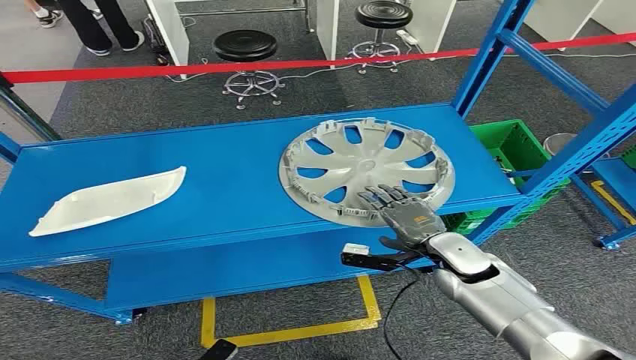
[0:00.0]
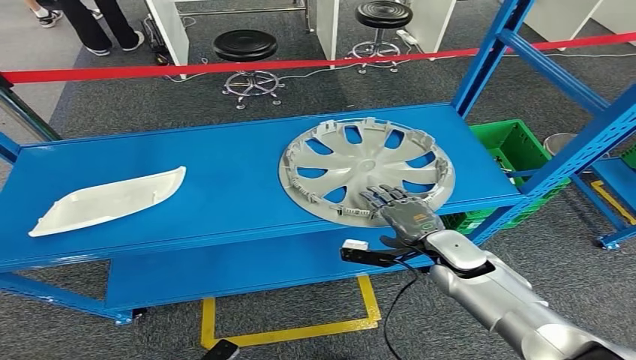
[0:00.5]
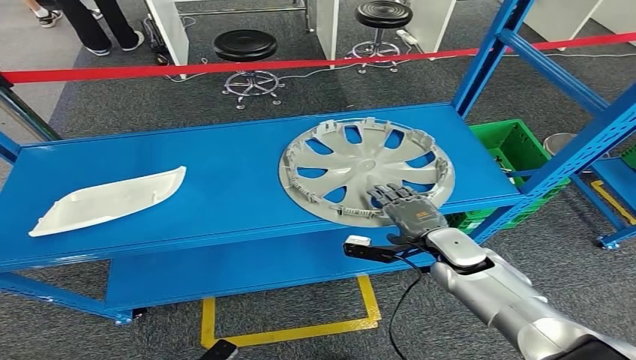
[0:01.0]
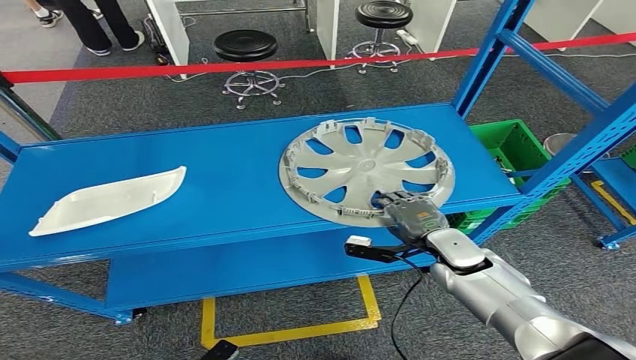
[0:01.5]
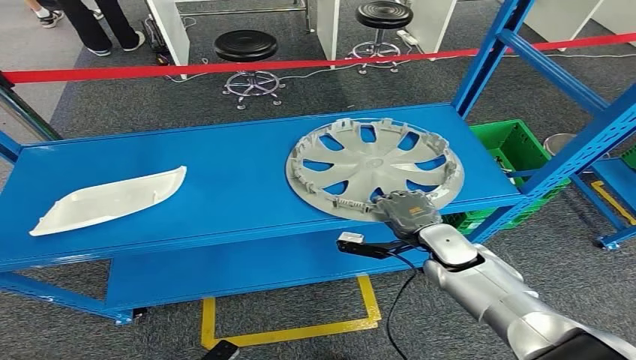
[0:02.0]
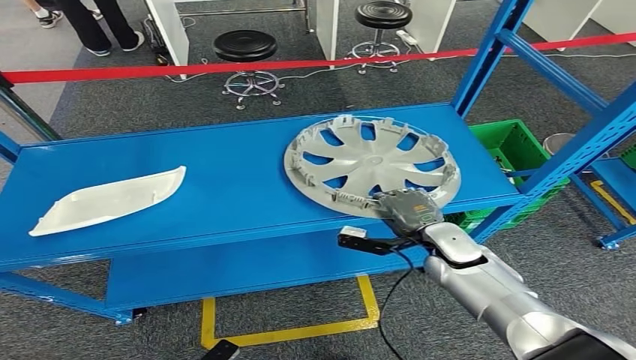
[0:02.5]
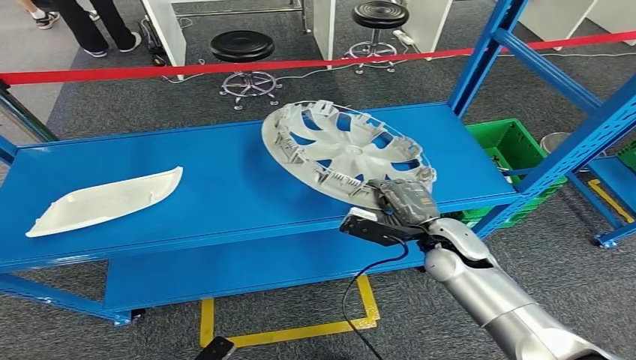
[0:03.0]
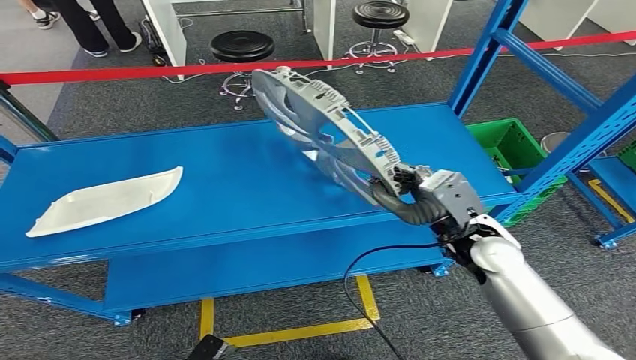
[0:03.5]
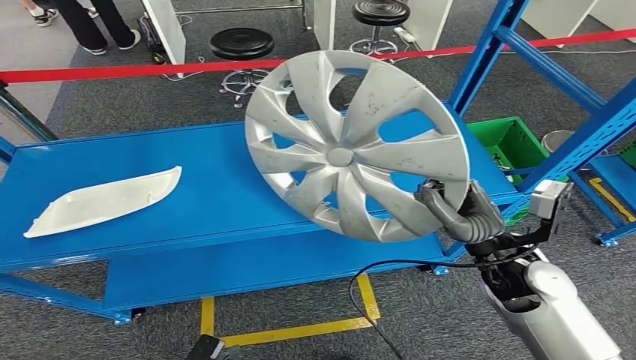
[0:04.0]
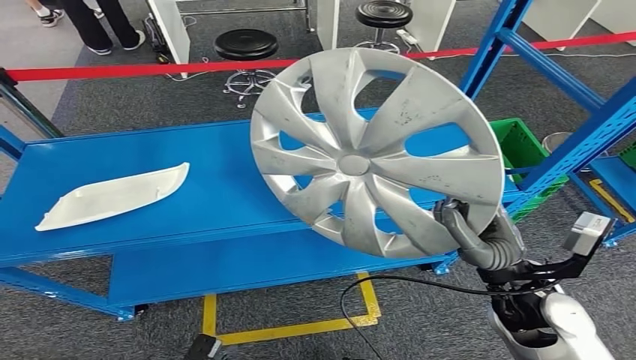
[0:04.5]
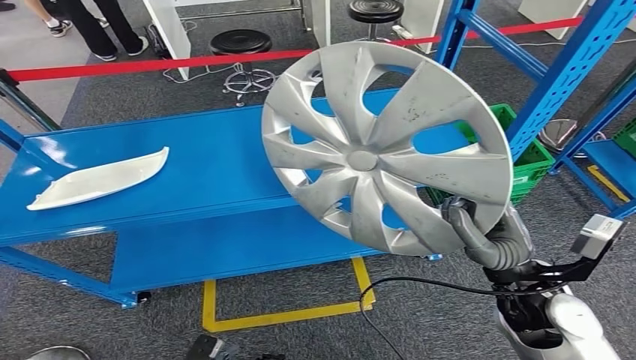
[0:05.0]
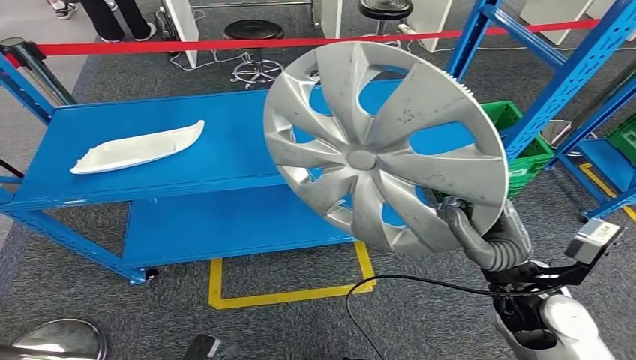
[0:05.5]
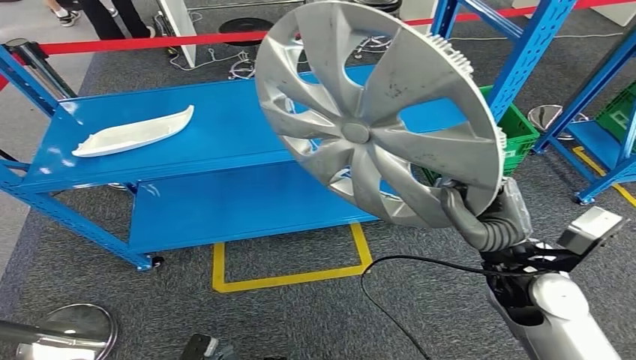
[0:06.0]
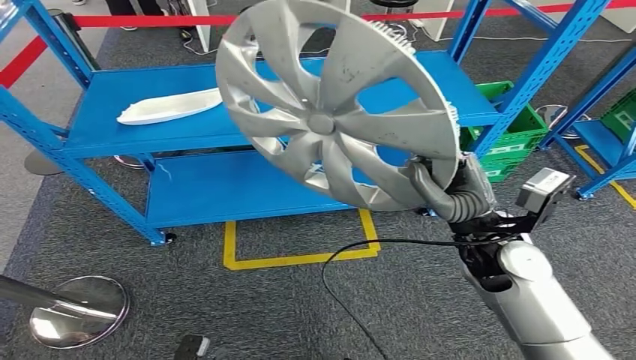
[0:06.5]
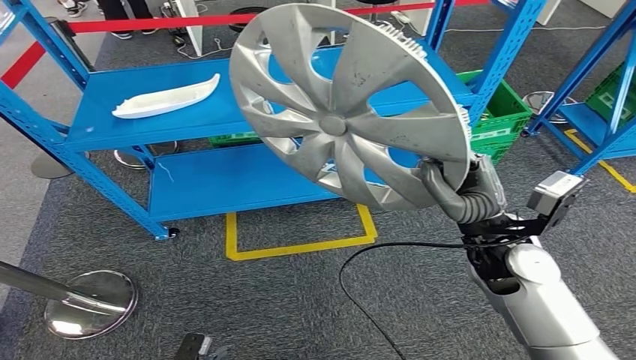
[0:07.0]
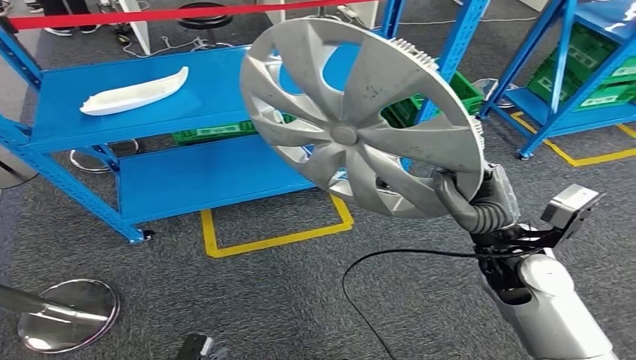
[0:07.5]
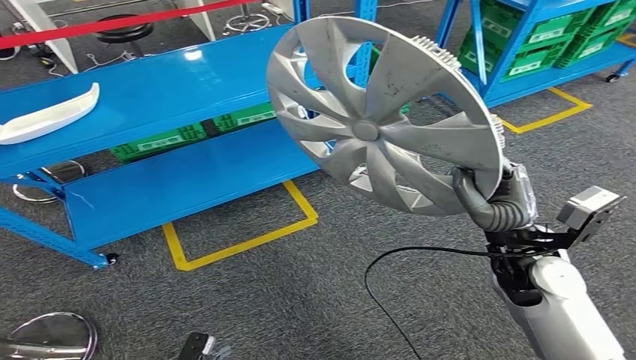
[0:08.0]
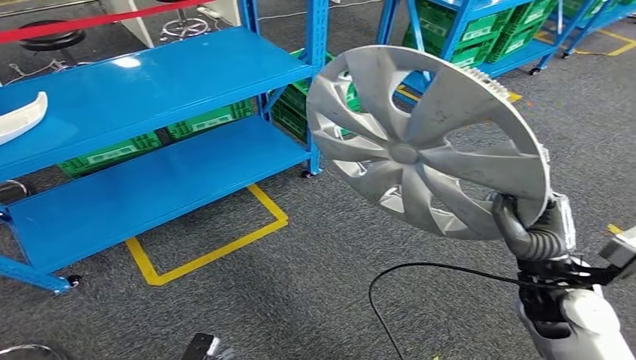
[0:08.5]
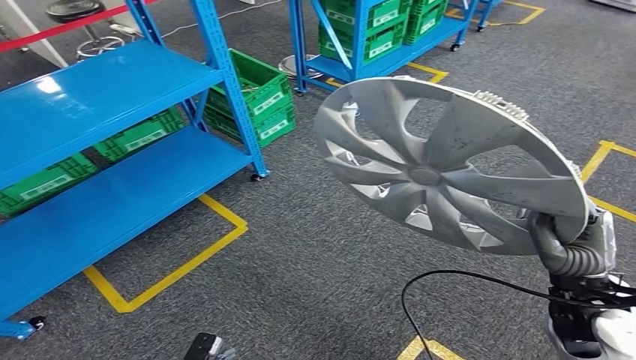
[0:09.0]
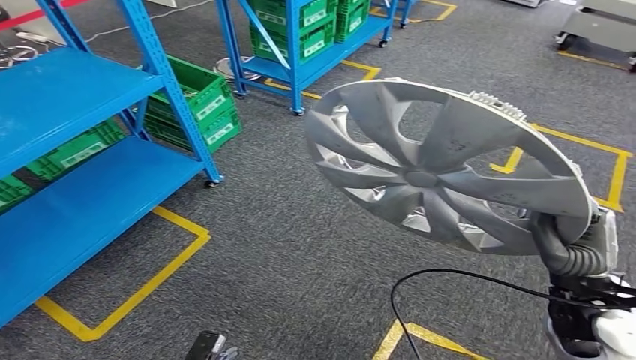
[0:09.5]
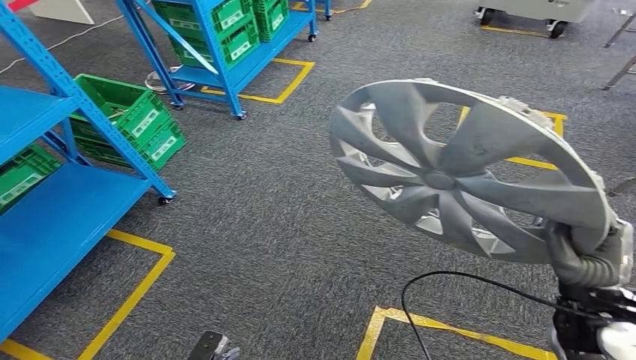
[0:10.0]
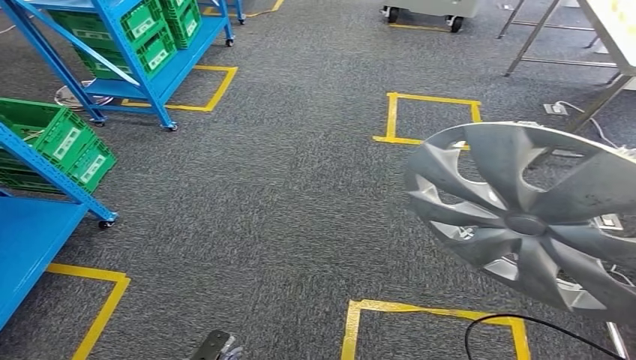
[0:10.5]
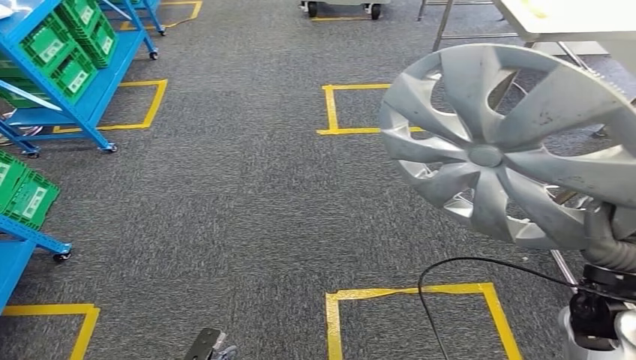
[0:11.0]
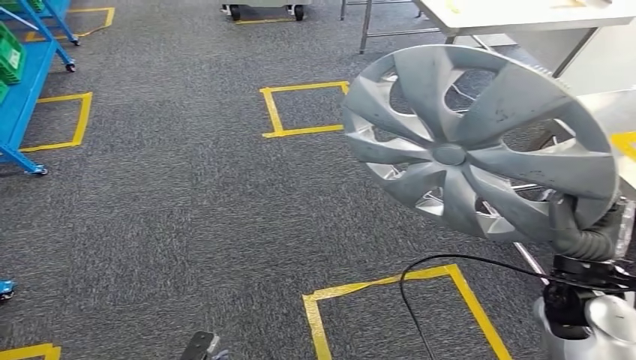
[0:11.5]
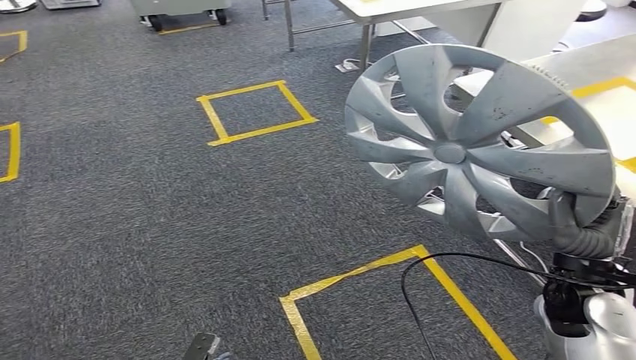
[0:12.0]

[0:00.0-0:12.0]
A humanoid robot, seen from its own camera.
Step, 0:00.0 to 0:04.0: Pick up the small component from the shelf.

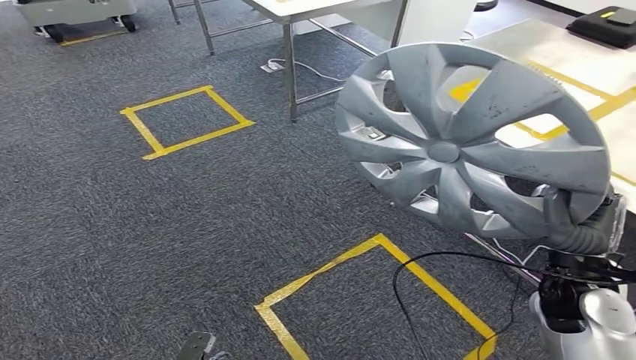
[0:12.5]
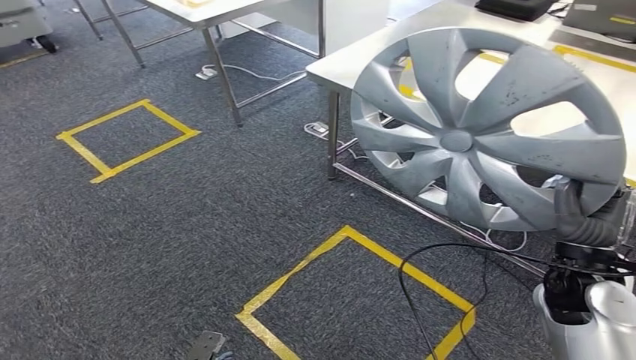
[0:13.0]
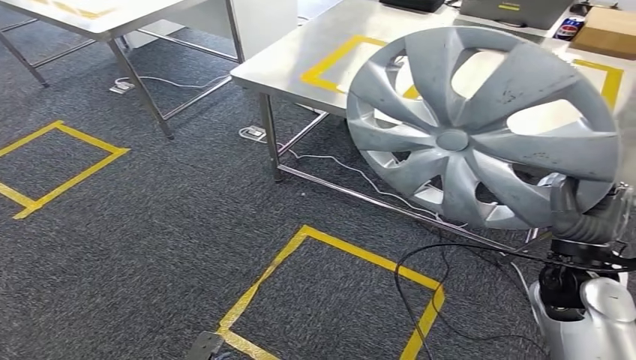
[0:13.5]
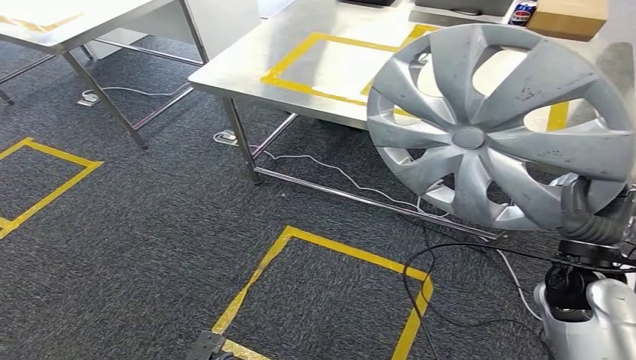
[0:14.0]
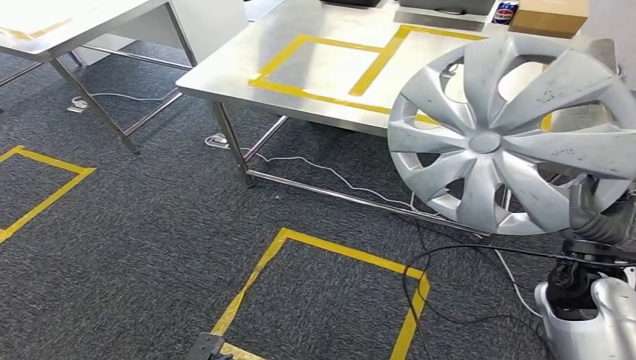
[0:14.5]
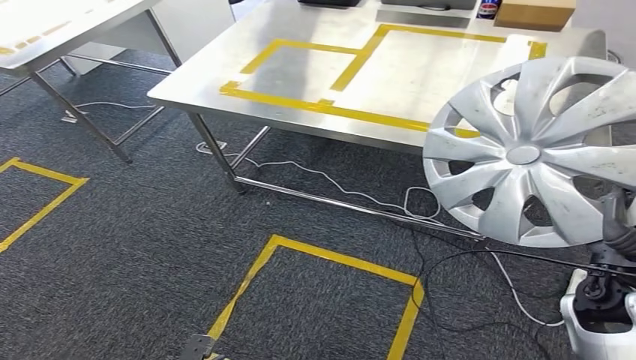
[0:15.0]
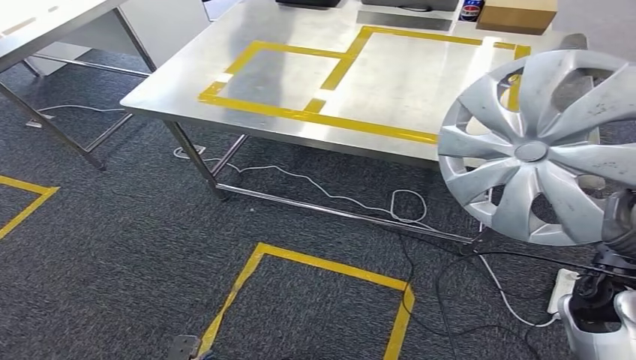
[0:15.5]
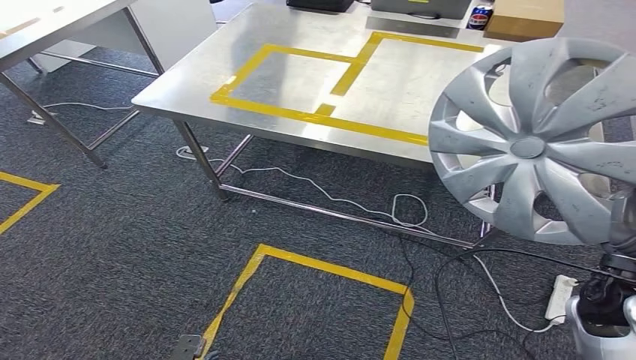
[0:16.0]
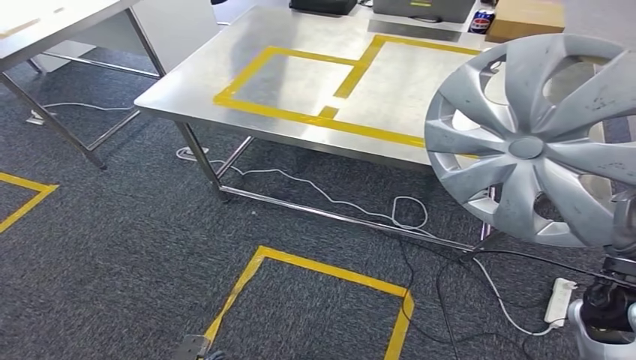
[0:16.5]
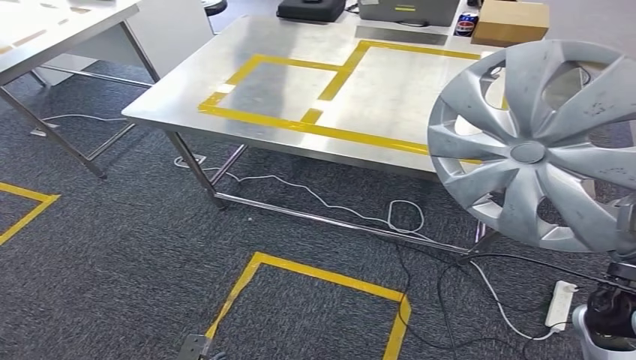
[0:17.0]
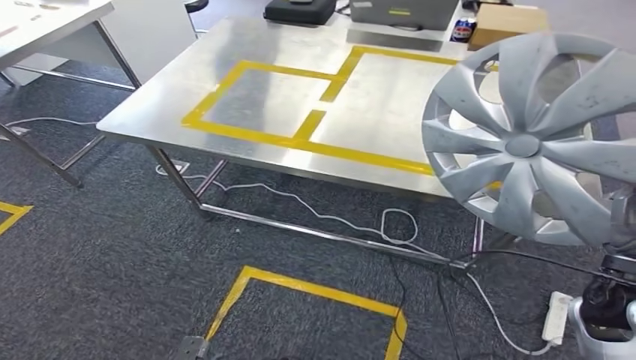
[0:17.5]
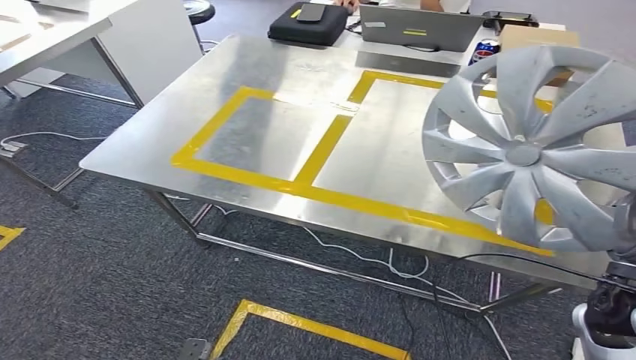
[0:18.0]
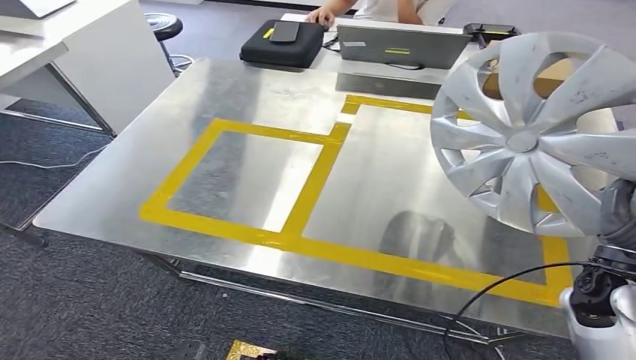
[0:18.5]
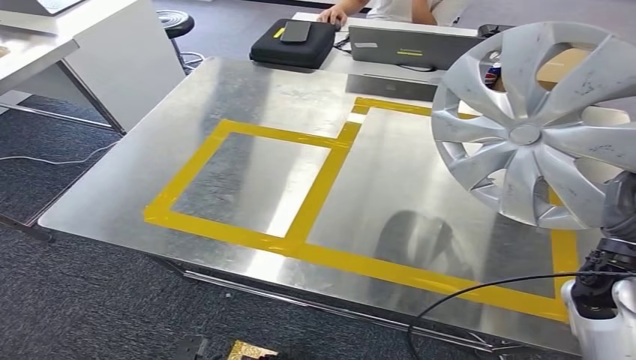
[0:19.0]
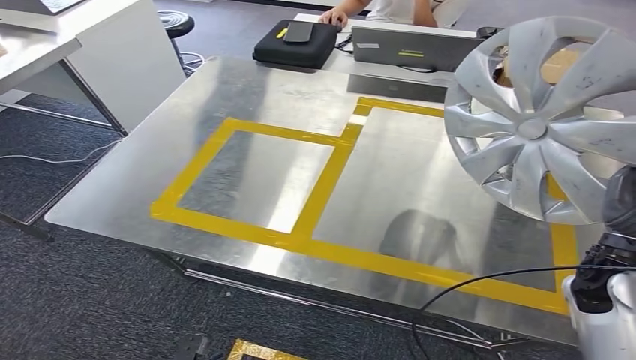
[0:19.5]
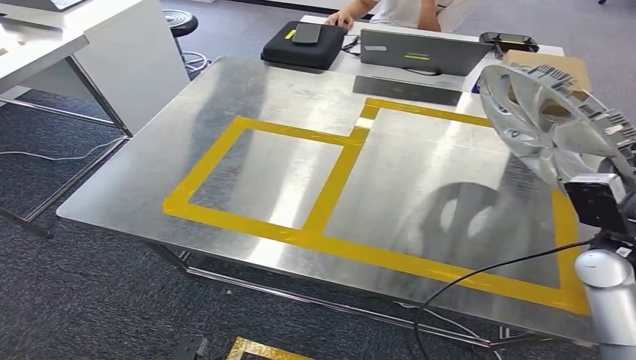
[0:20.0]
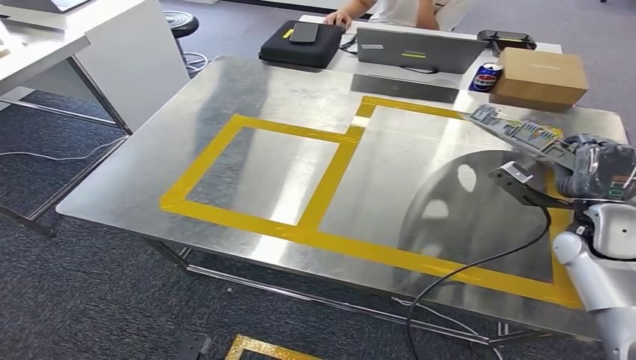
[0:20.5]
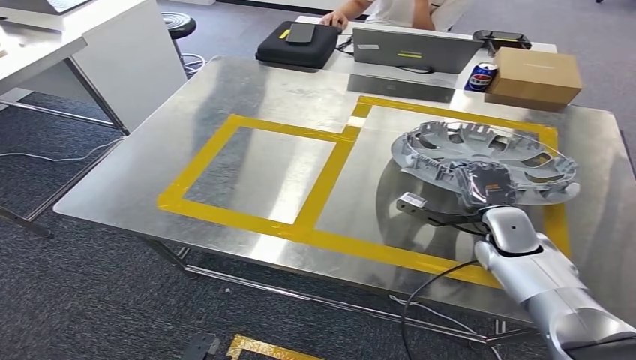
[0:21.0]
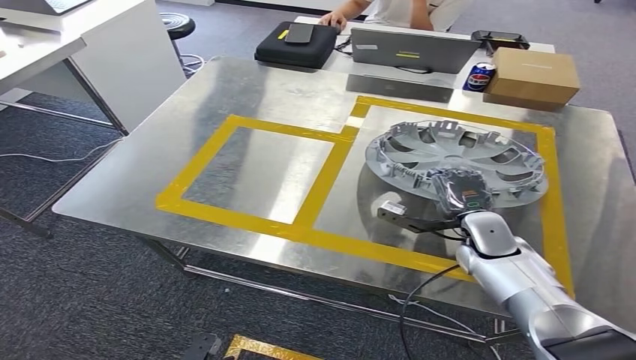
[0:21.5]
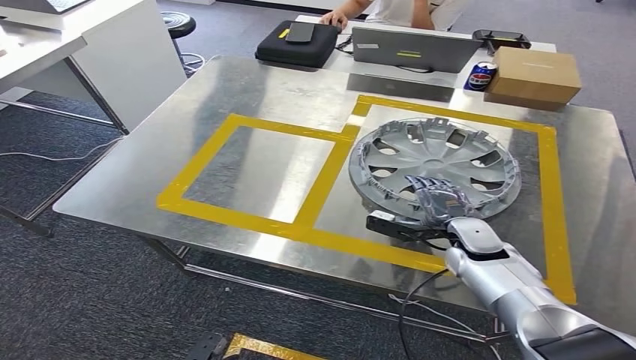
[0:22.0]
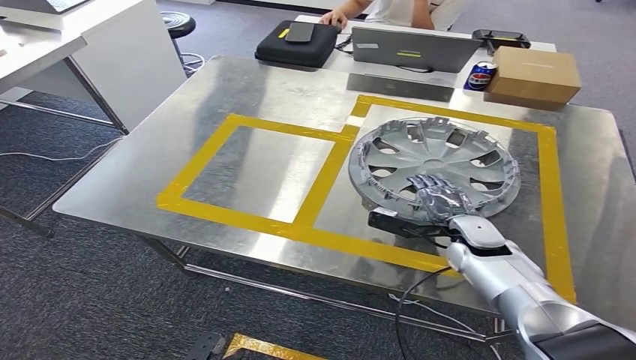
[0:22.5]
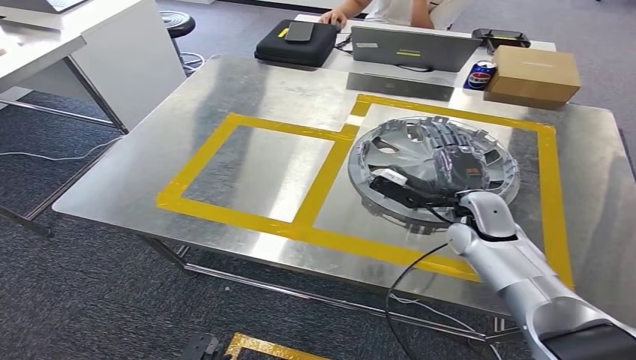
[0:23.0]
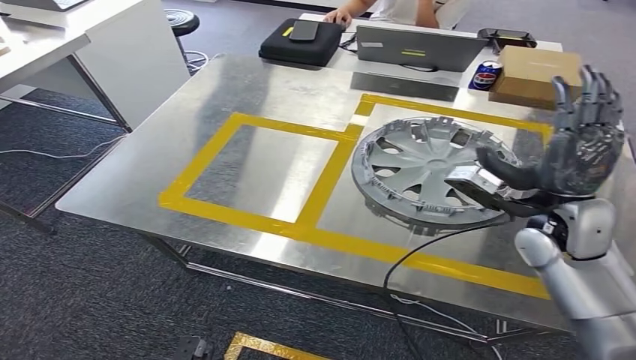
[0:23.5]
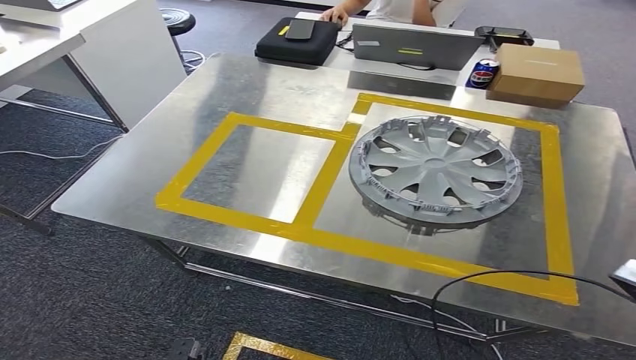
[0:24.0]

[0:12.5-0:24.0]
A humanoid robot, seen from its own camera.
Step, 0:12.5 to 0:17.5: Move the small component to the workbench.
0:22.0 to 0:24.0: The right hand is displaced to the right, backward and upward by roughly 25 cm.
